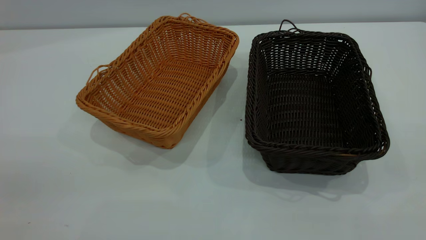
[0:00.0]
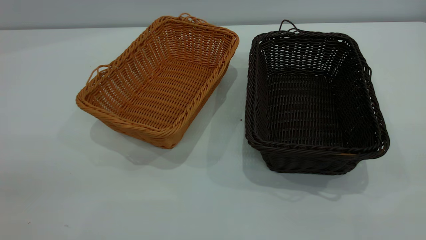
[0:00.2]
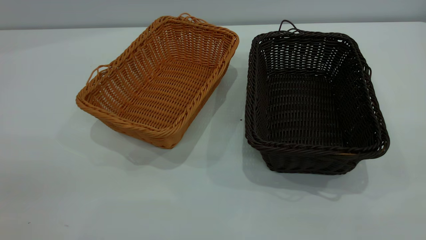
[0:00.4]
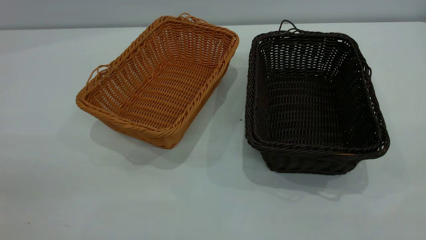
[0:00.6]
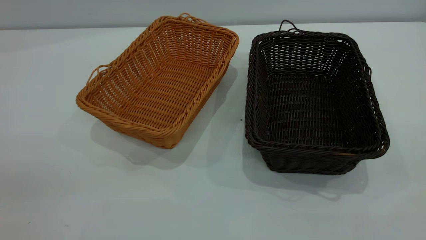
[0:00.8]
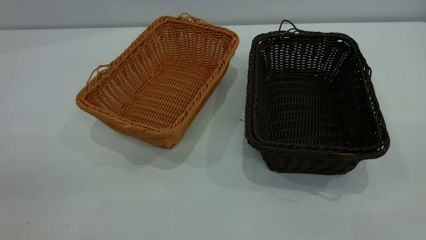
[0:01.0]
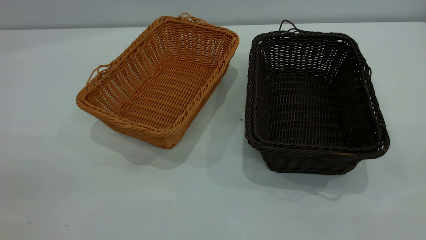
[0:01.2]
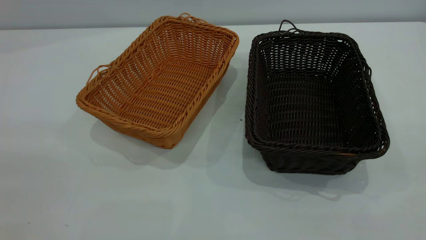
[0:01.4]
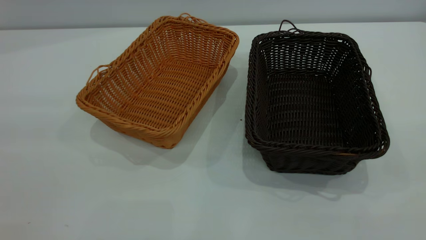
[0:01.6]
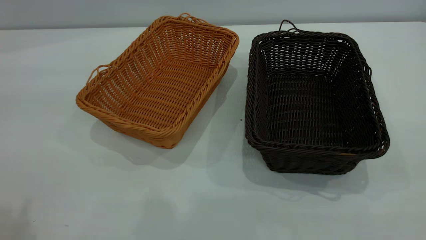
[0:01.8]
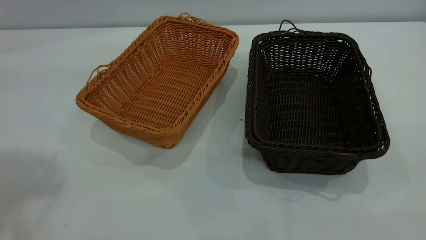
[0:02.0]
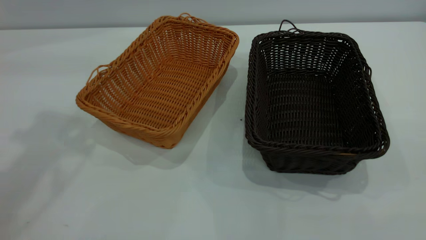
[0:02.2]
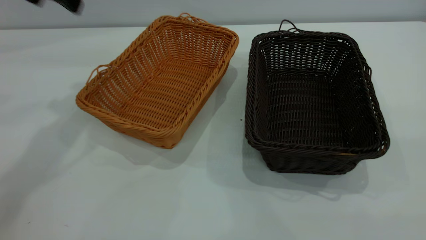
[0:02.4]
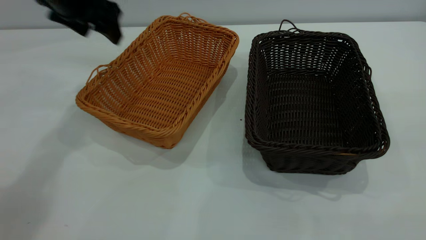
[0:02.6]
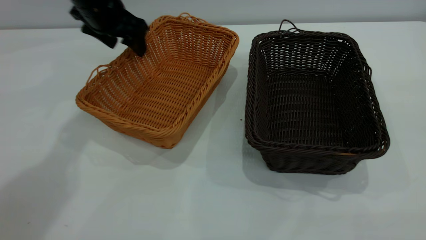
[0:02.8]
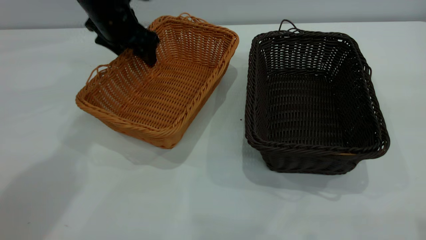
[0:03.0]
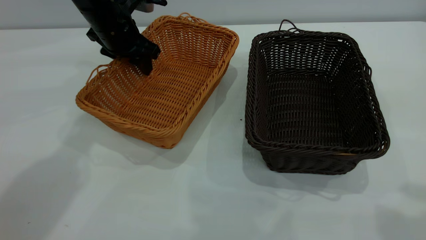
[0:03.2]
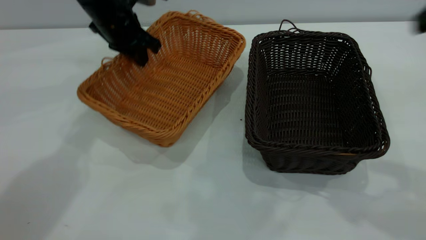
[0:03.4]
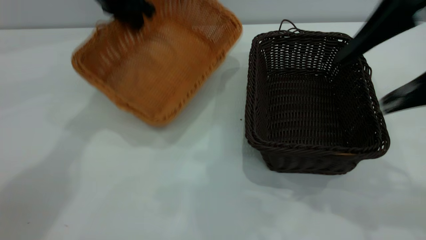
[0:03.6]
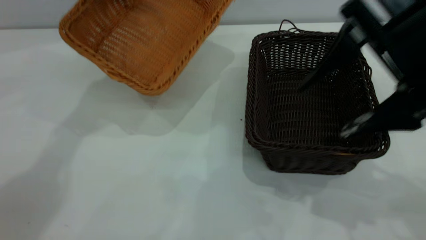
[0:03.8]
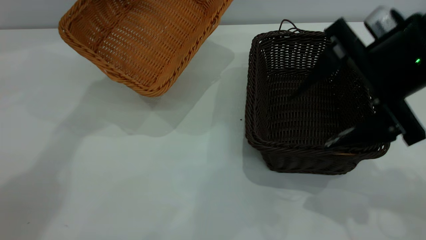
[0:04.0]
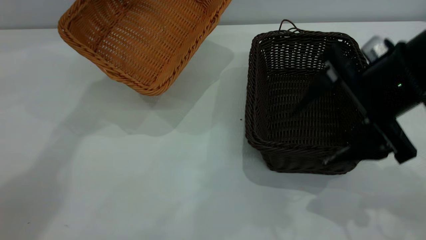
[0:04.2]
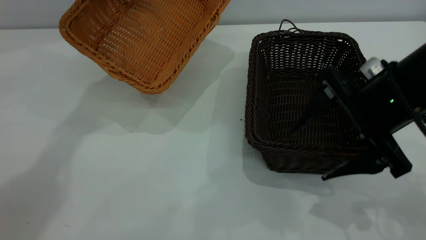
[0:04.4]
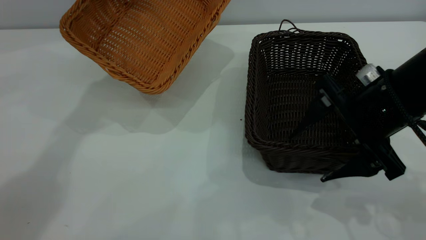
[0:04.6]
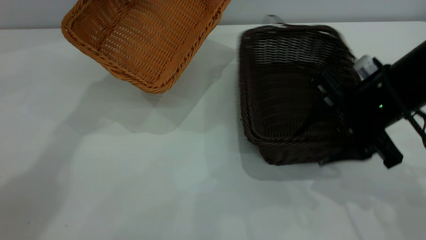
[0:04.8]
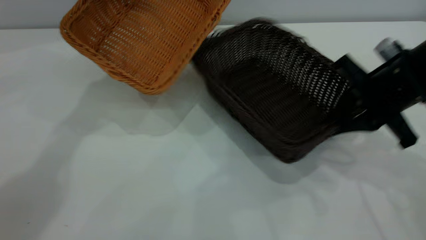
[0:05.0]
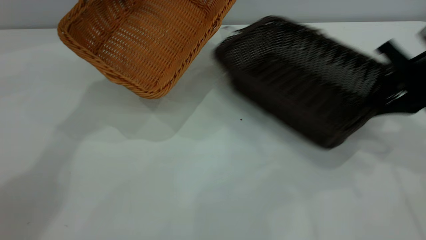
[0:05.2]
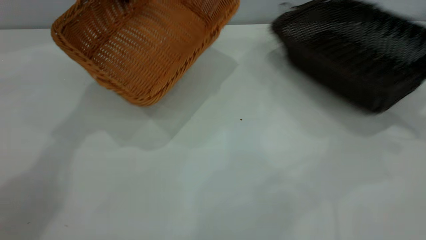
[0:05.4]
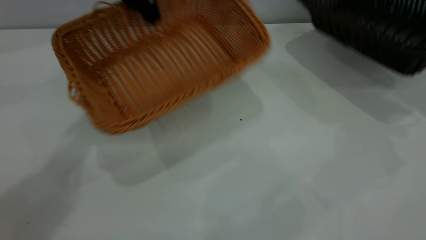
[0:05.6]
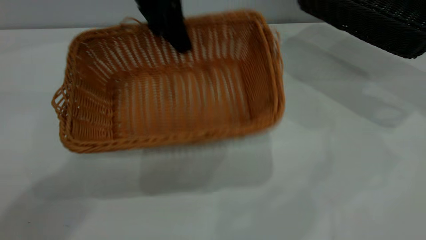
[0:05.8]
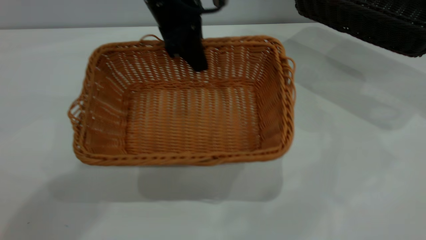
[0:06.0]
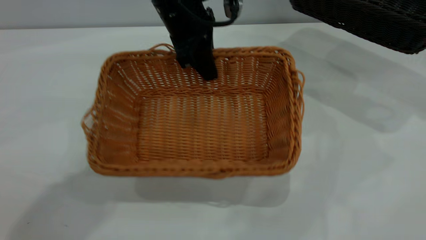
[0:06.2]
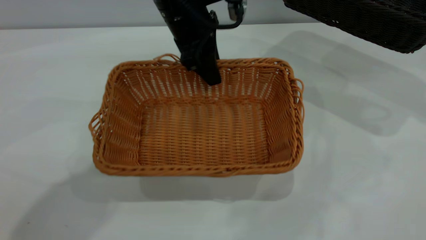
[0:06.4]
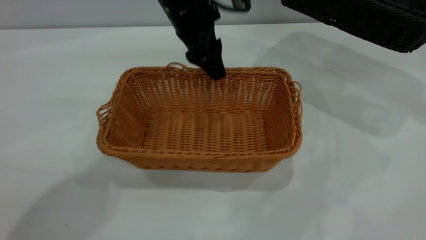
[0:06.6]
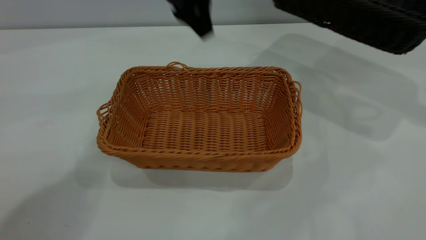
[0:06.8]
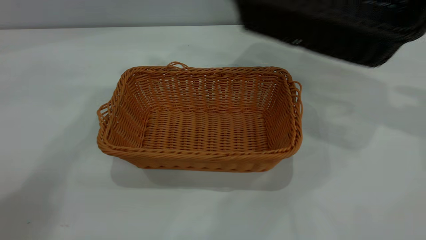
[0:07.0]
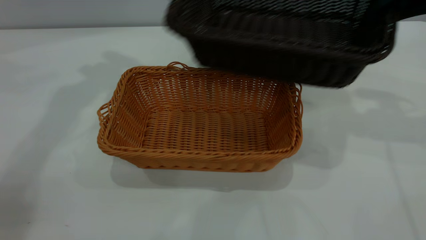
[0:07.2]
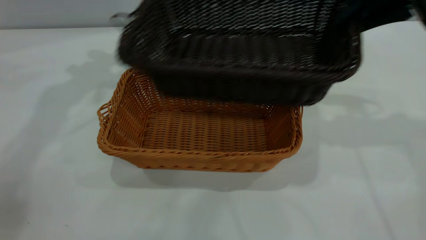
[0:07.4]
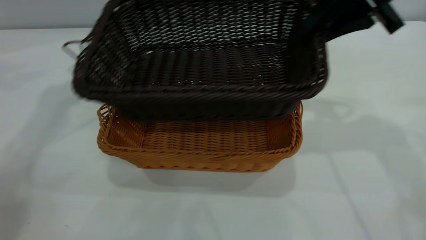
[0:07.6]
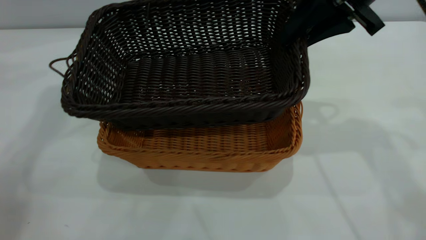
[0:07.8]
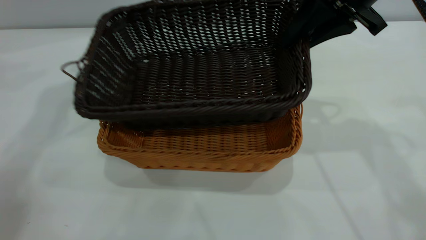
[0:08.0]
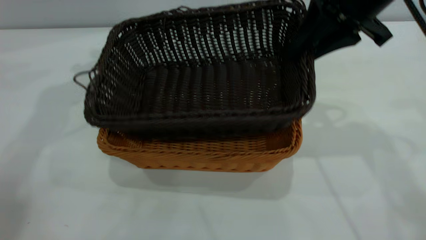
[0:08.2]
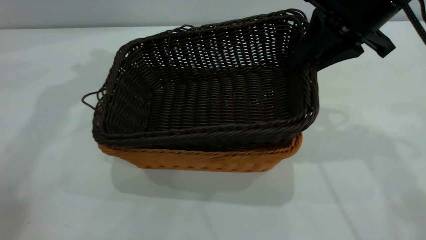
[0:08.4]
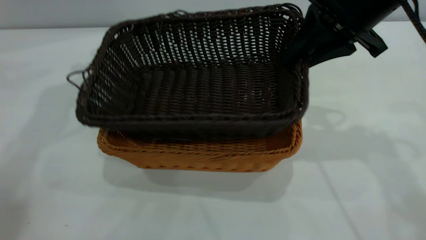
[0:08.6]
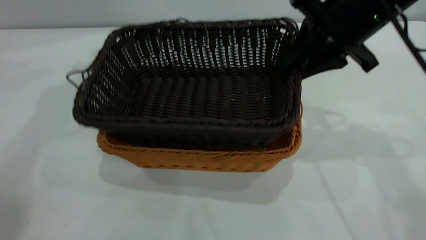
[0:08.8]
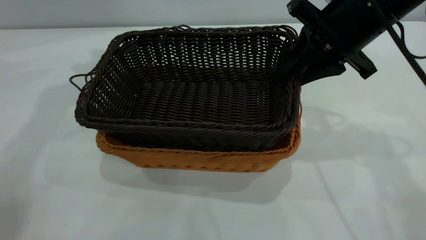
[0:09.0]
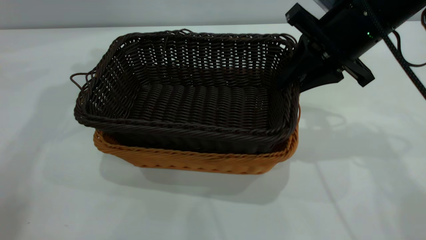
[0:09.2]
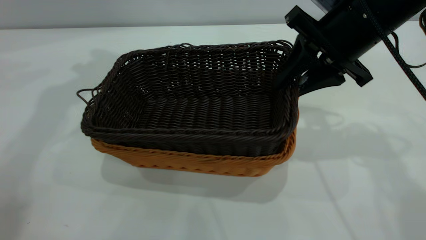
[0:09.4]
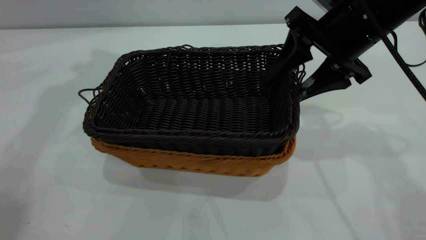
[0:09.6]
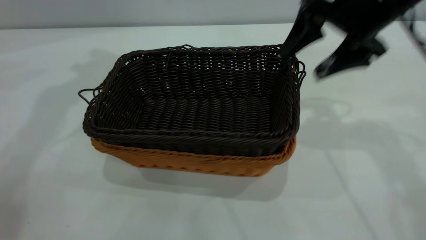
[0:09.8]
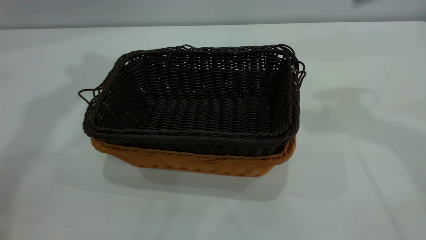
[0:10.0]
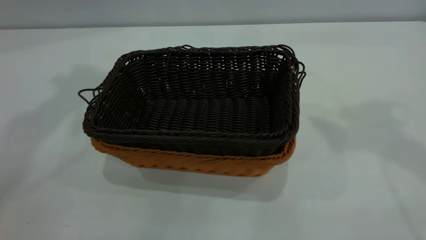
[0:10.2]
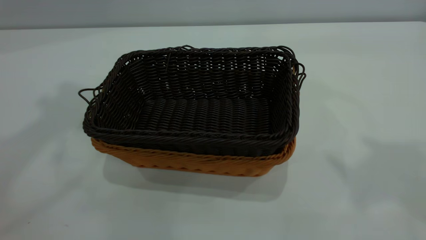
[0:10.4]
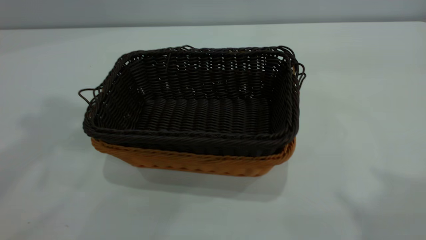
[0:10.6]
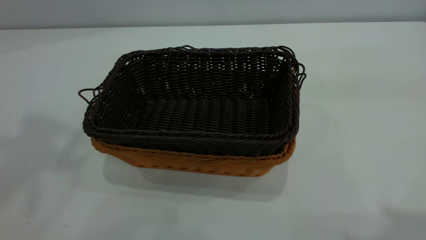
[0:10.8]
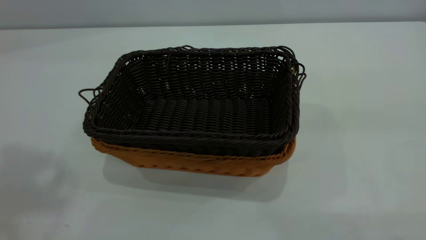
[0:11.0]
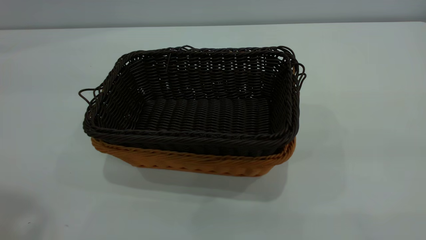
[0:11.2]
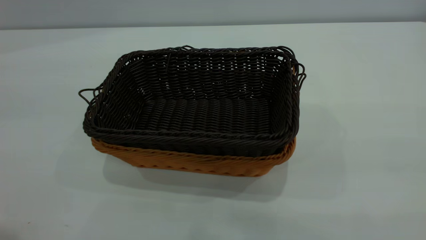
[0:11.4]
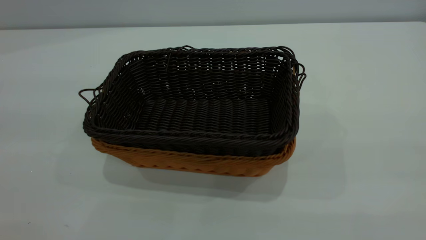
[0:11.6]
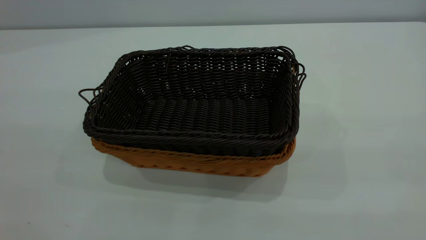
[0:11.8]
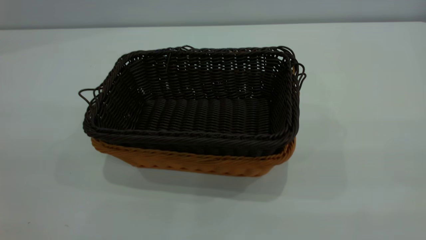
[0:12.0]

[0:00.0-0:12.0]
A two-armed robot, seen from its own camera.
Task of the whole recording: the left gripper grasp the brown basket and place it in the center of the table, the right gripper grasp the black basket and place it inside the brown one.
Step, 0:00.0 to 0:03.6: Pick up the light basket with the right gripper.
Step, 0:03.8 to 0:06.6: Place the light-colored basket in the center.
Step, 0:06.8 to 0:09.8: Place the dark basket on top of the light basket.
0:01.6 to 0:03.0: The left gripper moves forward and downward, approximately 50 cm.
0:03.0 to 0:04.4: The left gripper moves upward, some 10 cm, and closes its fingers. The right gripper moves downward, forward and to the left, about 30 cm.
0:04.4 to 0:06.0: The right gripper is displaced to the right, upward and forward by about 25 cm, and closes its fingers. Meanwhile the left gripper goes about 15 cm to the right, backward and downward.
0:06.0 to 0:07.6: The right gripper goes approximately 25 cm to the left. Meanwhile the left gripper is displaced to the left and upward by some 25 cm, and opens.
0:07.6 to 0:09.0: The right gripper travels downward by roughly 5 cm.
0:09.0 to 0:10.4: Both grippers travel together upward and backward, approximately 30 cm. The right gripper opens its fingers.
